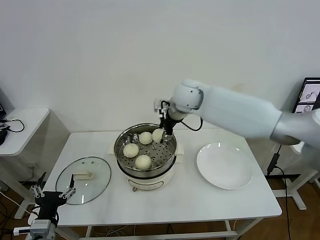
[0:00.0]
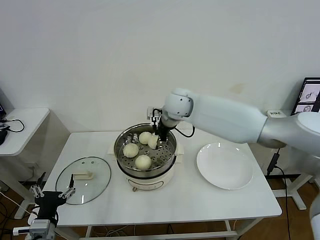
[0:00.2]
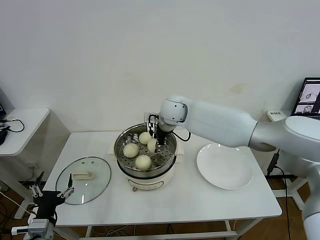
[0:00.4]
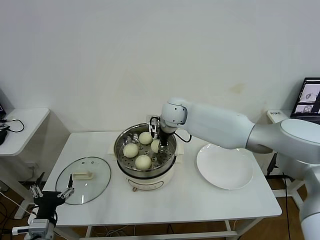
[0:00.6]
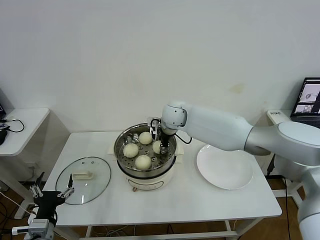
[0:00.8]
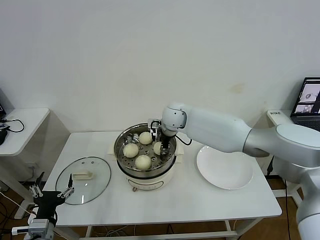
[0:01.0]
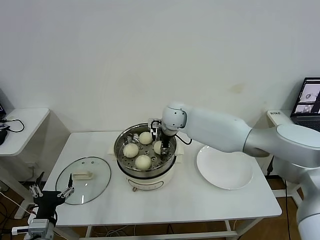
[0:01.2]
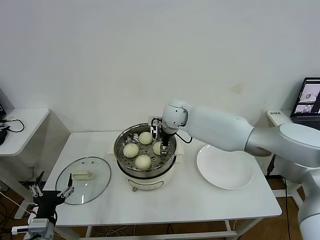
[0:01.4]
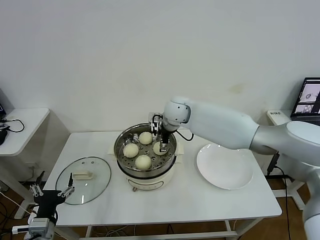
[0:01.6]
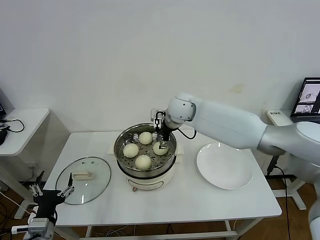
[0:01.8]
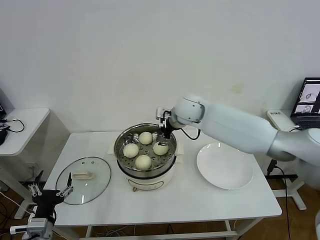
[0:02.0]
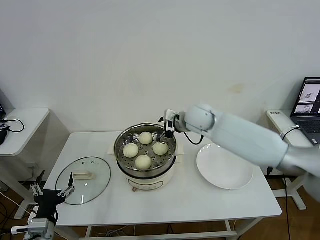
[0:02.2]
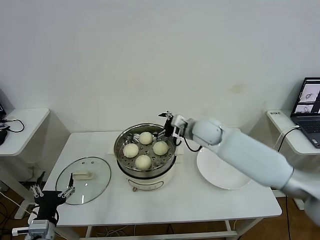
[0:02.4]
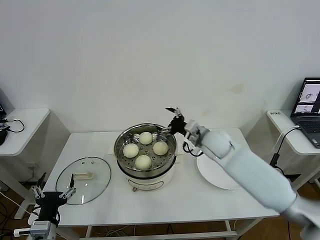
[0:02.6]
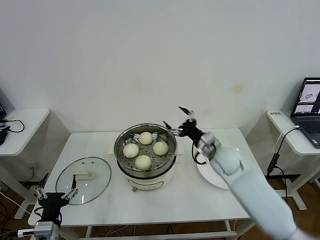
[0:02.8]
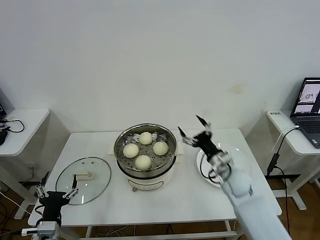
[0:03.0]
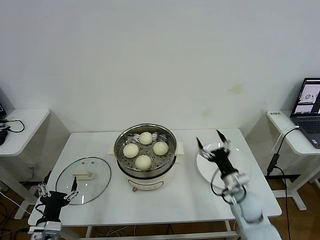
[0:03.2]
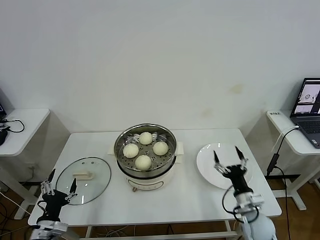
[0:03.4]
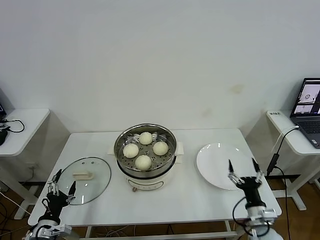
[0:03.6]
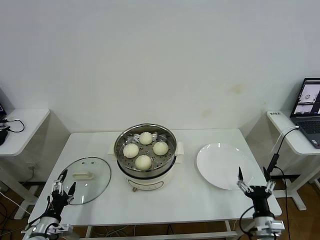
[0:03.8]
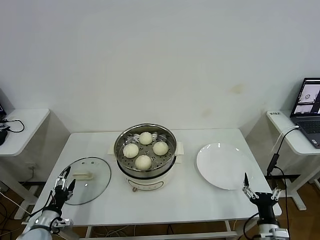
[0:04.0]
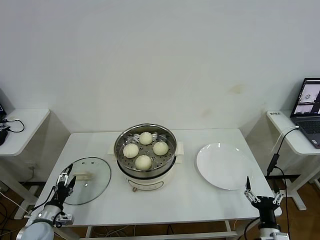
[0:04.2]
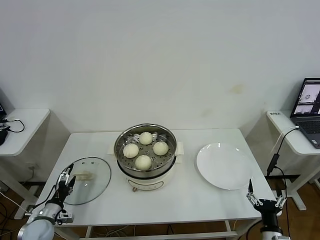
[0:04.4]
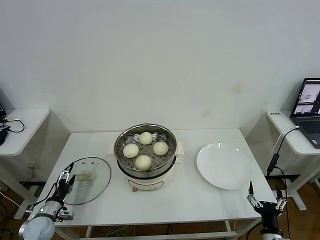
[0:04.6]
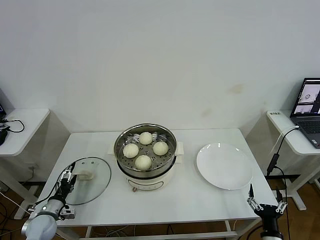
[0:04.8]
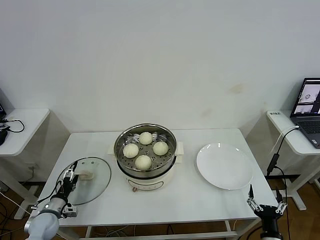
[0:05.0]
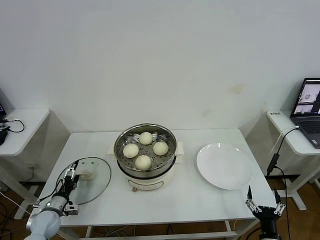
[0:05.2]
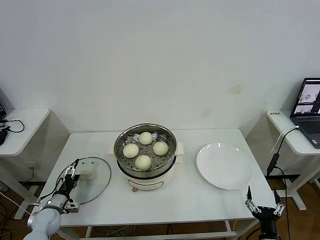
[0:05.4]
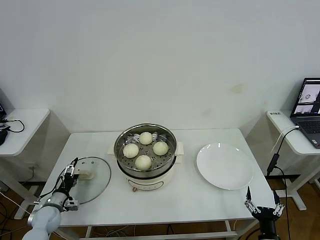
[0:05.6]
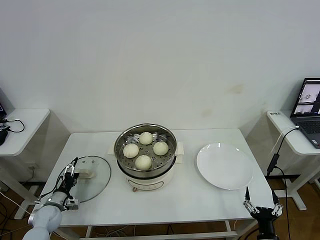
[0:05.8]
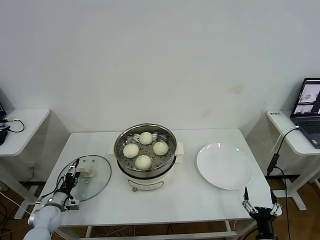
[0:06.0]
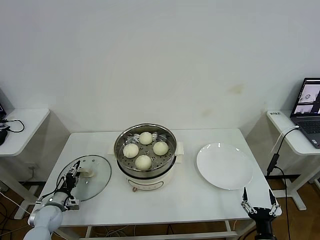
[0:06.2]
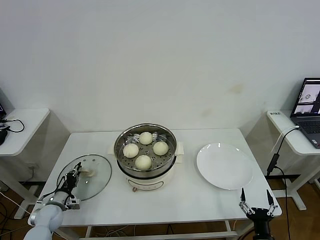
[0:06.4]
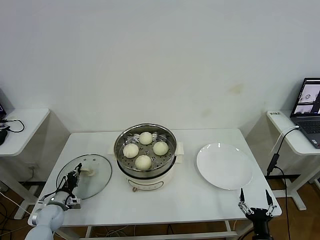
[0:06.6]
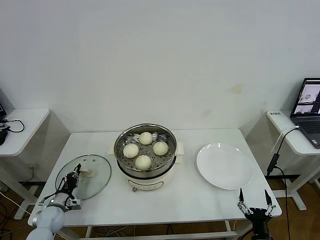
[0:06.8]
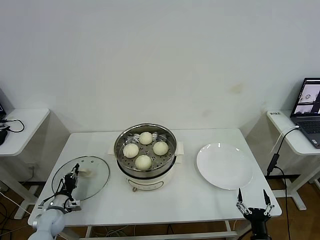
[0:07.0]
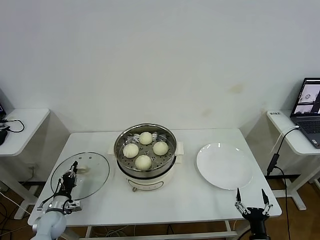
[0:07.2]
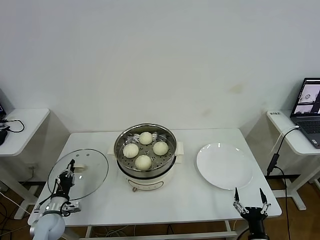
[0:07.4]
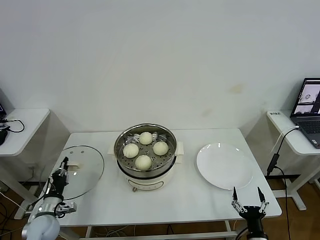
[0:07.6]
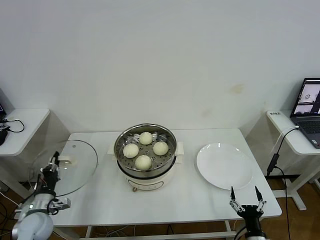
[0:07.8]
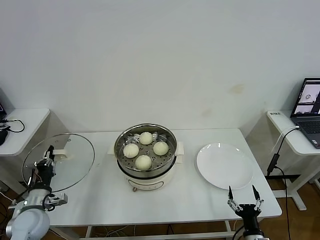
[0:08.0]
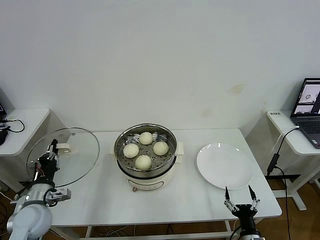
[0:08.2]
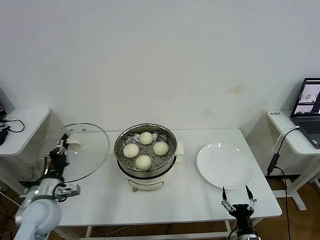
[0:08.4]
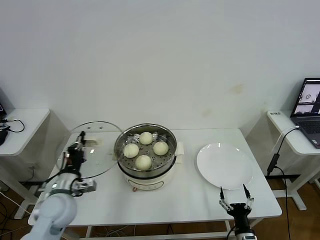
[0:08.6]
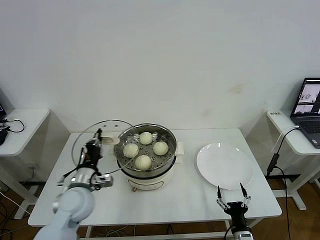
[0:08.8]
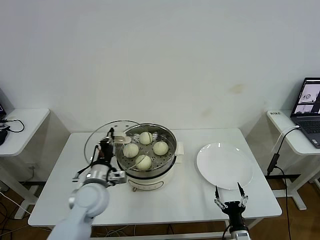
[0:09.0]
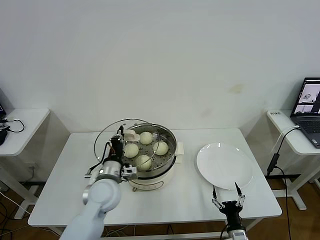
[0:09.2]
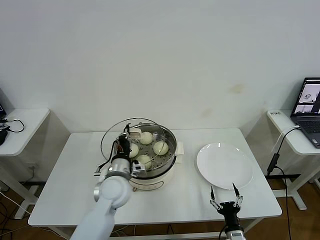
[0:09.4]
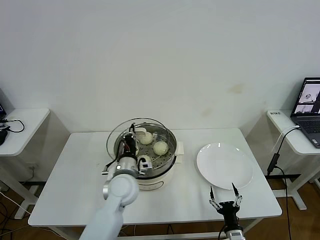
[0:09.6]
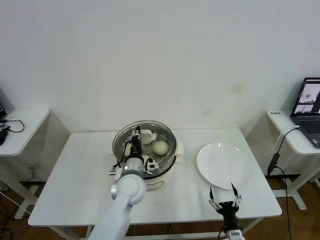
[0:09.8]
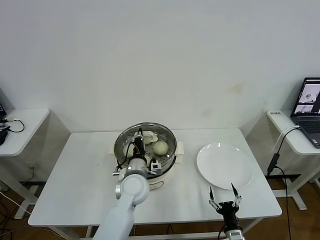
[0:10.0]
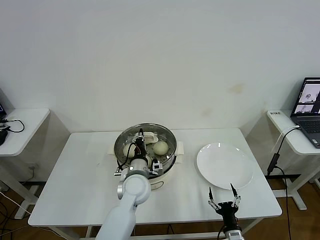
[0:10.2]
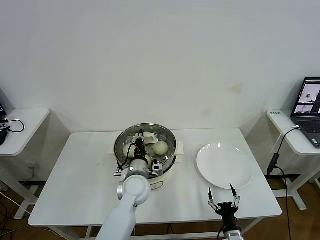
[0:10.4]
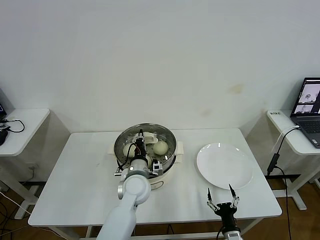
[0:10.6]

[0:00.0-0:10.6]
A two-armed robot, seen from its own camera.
Task of the whole recording: take steamed baozi put them in steamer then cover it.
Step, 0:00.0 to 0:01.6: Place the baozi on the steamer with right gripper.
Step, 0:01.8 to 0:06.6: Grasp the pot lid with left gripper.
0:00.0 to 0:01.6: The right gripper travels downward by some 5 cm, and opens up.
0:01.6 to 0:03.0: The right gripper moves to the right, backward and downward, some 30 cm.
0:03.0 to 0:04.6: The right gripper travels backward, downward and to the right by roughly 30 cm; the left gripper moves to the left, forward and downward, approximately 20 cm.
0:04.6 to 0:06.0: The left gripper moves forward, approximately 5 cm.
0:06.0 to 0:07.6: The left gripper shifts by approximately 5 cm, and closes up.
0:07.6 to 0:09.0: The left gripper moves to the right and upward, approximately 25 cm; the right gripper moves approximately 5 cm.
0:09.0 to 0:10.6: The left gripper heads to the right, covering roughly 15 cm.

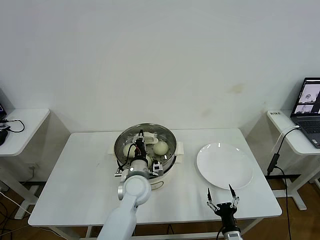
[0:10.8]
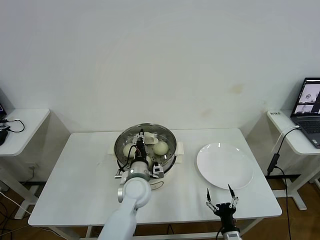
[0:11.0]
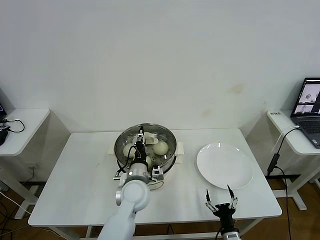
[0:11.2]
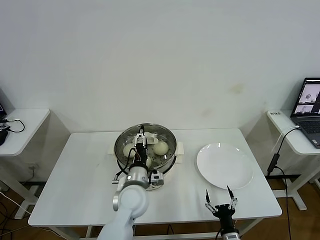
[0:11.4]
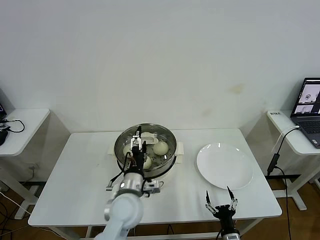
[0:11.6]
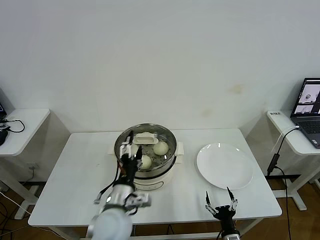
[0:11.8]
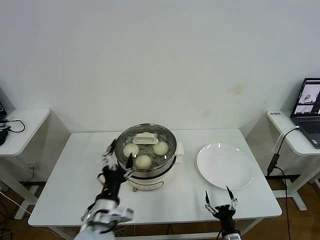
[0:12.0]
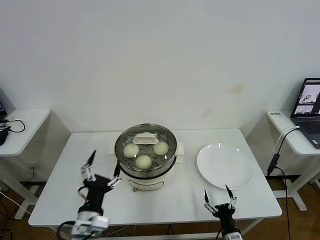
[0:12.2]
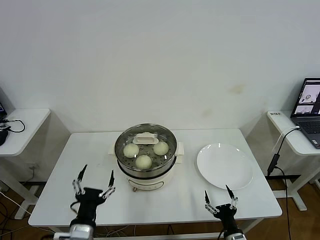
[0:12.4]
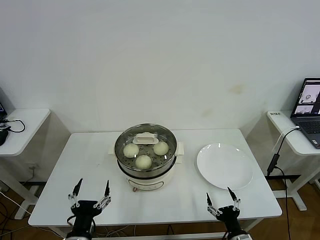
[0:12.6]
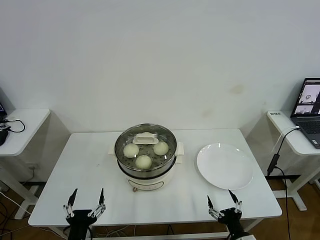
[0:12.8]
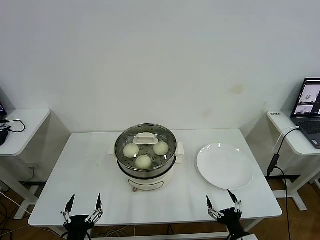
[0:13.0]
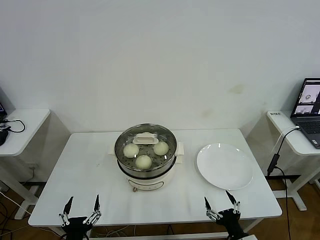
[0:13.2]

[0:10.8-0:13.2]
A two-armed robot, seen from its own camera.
Task of the whole recording: take steamed baozi put them in steamer then cover it.
0:10.8 to 0:12.0: The left gripper goes approximately 15 cm backward and to the left, and opens up.
0:12.0 to 0:13.2: The left gripper shifts some 20 cm backward, to the left and downward. Meanwhile the right gripper is displaced upward by roughly 10 cm.
